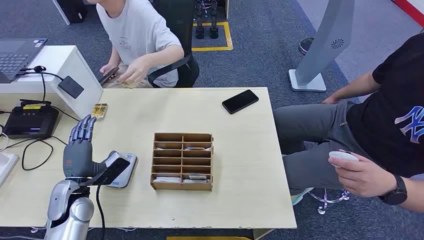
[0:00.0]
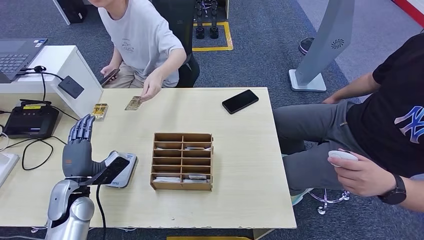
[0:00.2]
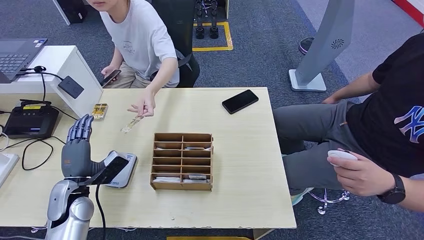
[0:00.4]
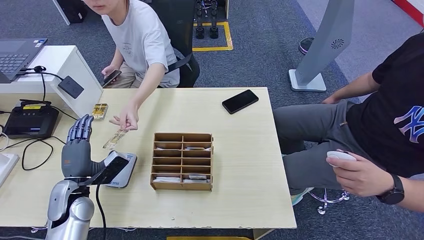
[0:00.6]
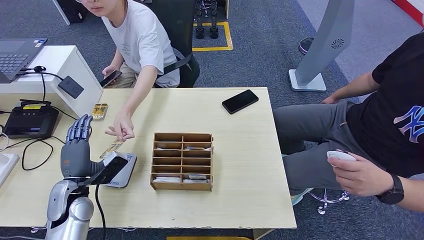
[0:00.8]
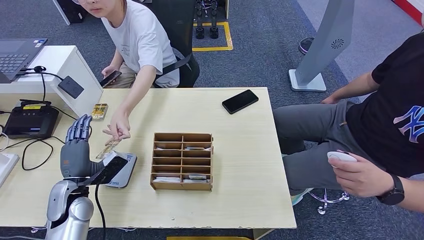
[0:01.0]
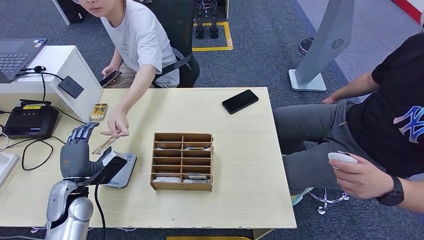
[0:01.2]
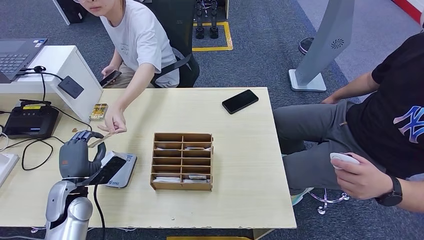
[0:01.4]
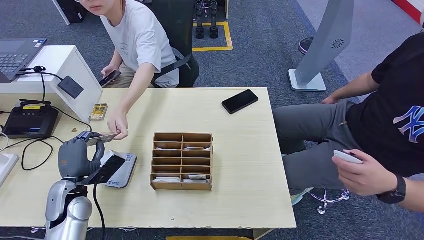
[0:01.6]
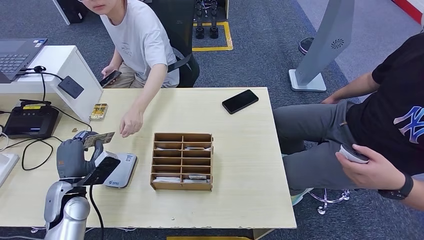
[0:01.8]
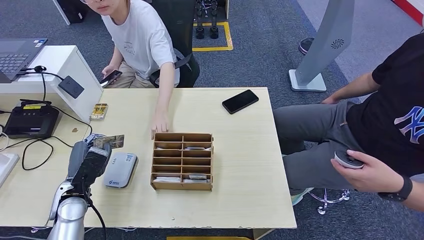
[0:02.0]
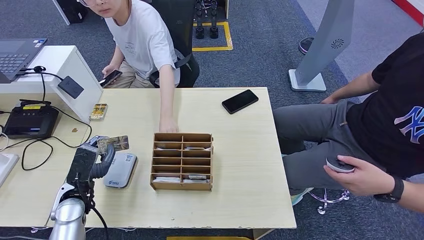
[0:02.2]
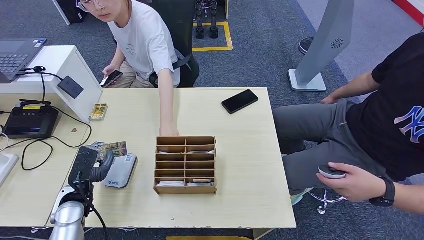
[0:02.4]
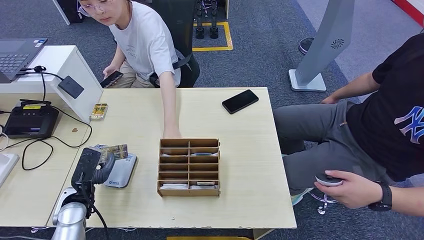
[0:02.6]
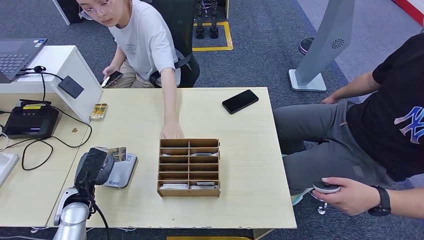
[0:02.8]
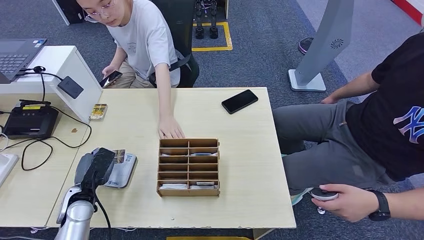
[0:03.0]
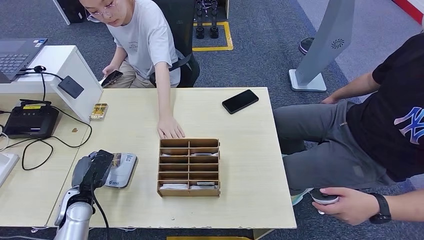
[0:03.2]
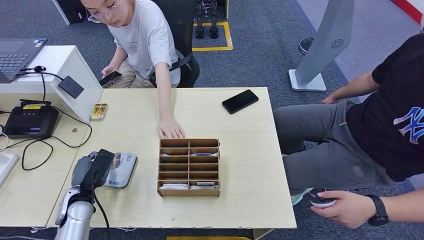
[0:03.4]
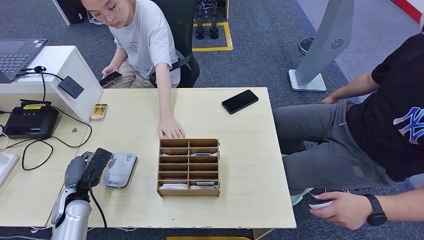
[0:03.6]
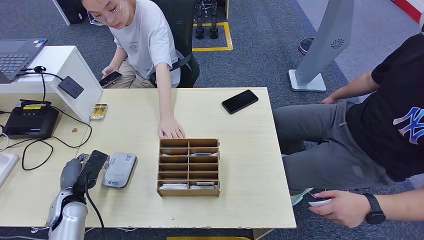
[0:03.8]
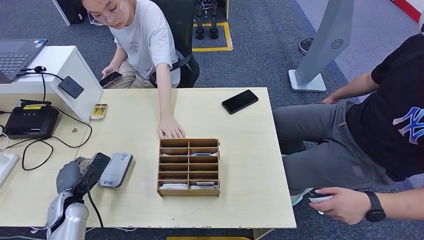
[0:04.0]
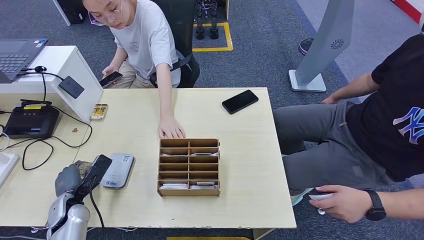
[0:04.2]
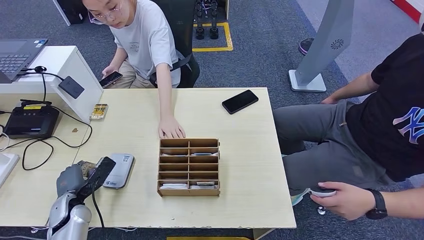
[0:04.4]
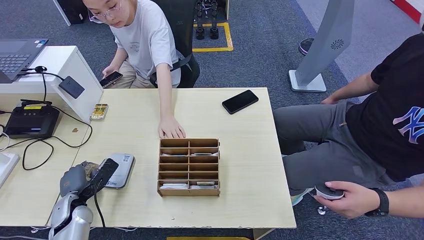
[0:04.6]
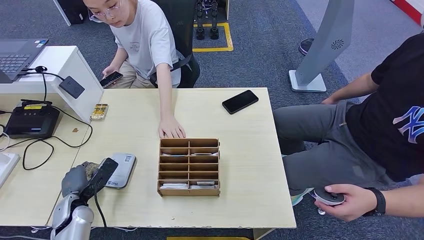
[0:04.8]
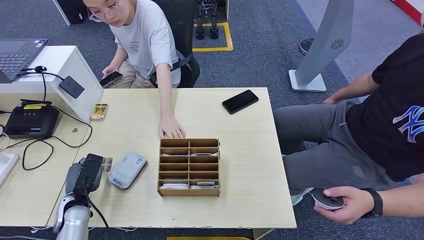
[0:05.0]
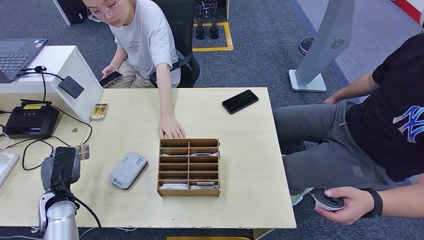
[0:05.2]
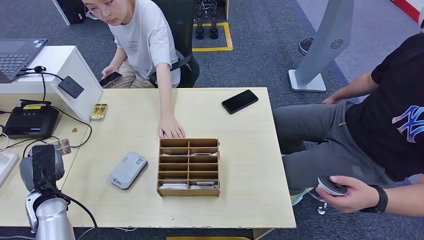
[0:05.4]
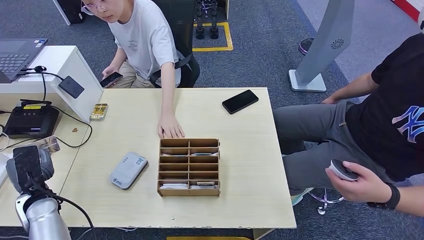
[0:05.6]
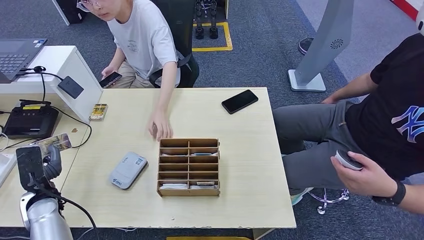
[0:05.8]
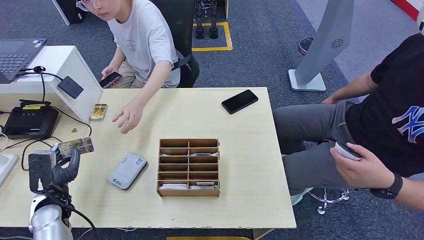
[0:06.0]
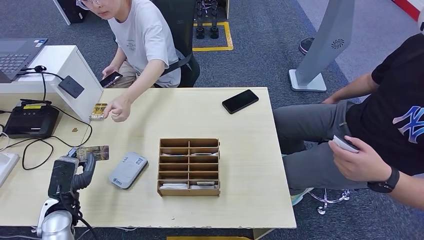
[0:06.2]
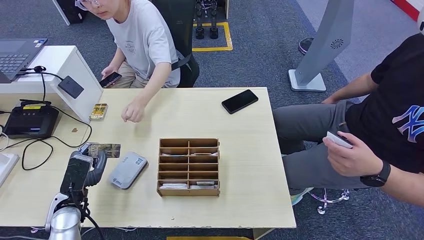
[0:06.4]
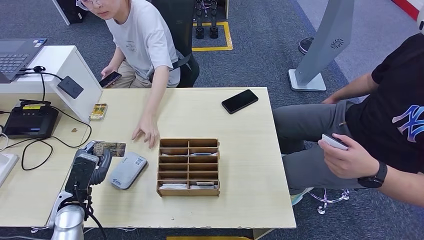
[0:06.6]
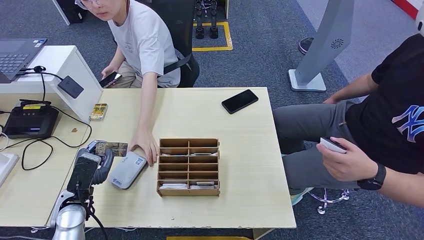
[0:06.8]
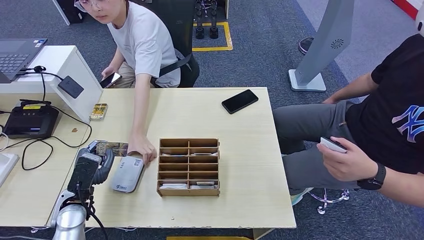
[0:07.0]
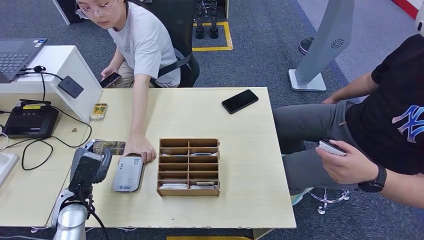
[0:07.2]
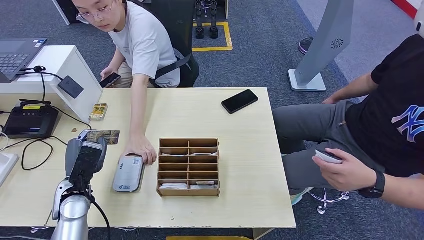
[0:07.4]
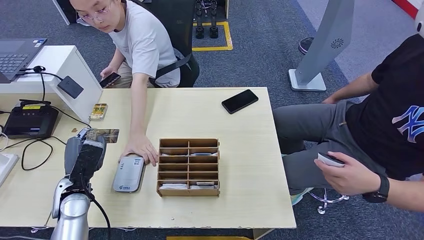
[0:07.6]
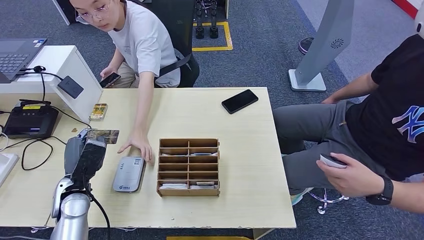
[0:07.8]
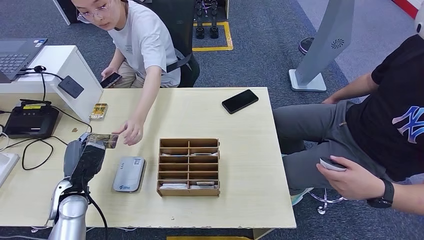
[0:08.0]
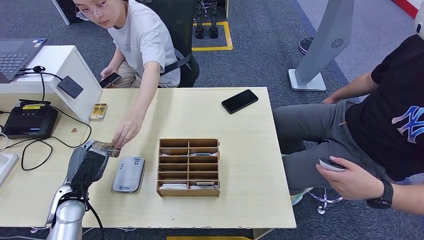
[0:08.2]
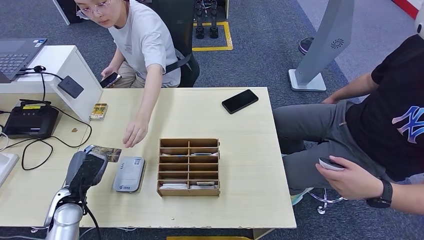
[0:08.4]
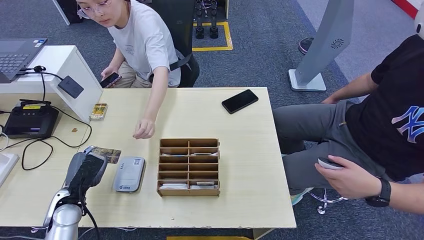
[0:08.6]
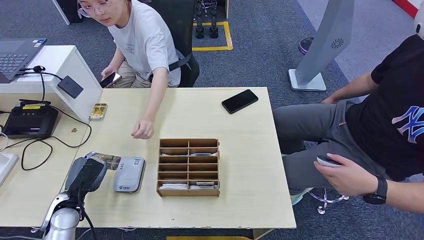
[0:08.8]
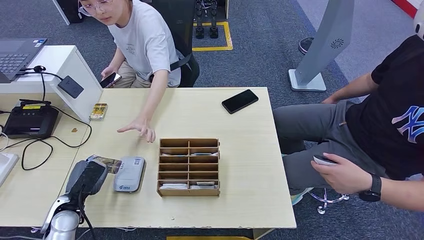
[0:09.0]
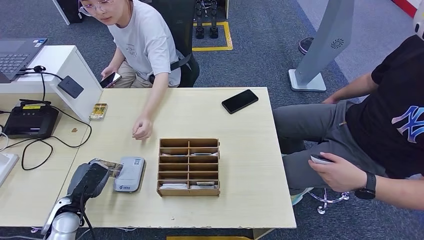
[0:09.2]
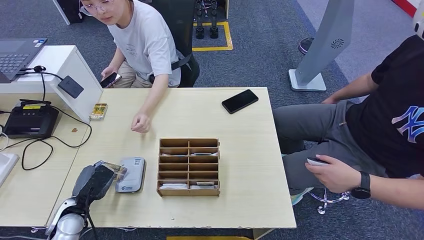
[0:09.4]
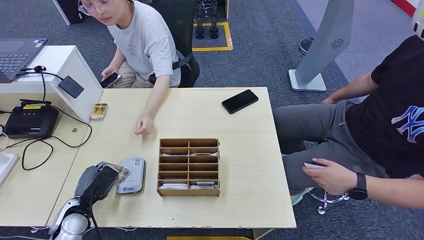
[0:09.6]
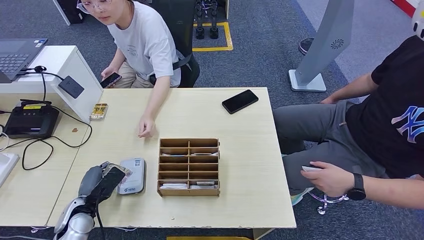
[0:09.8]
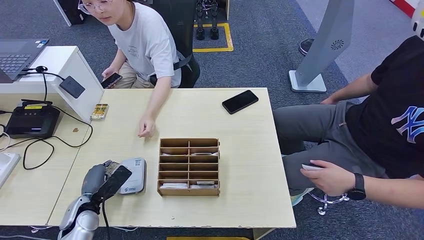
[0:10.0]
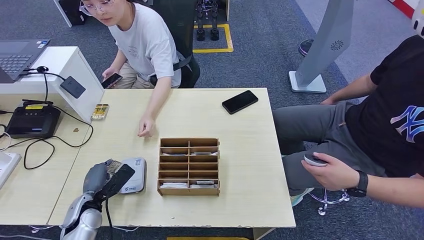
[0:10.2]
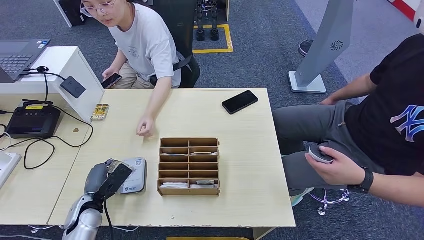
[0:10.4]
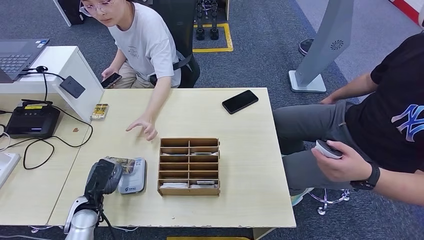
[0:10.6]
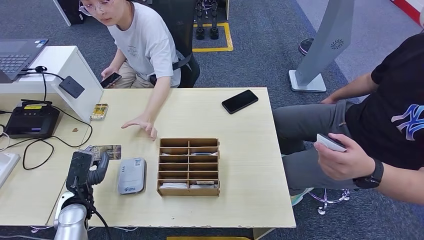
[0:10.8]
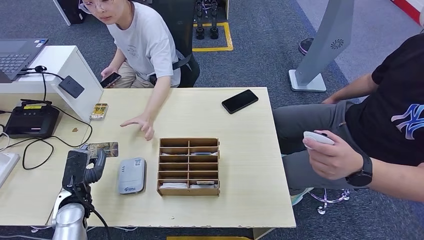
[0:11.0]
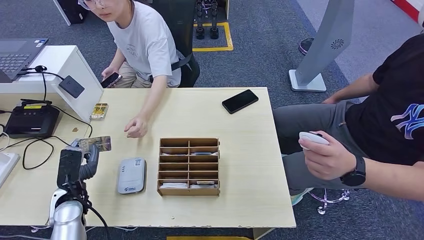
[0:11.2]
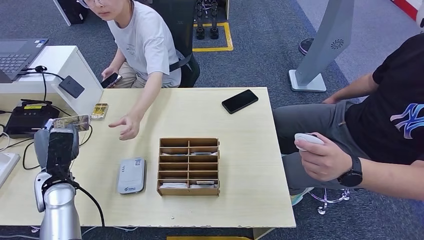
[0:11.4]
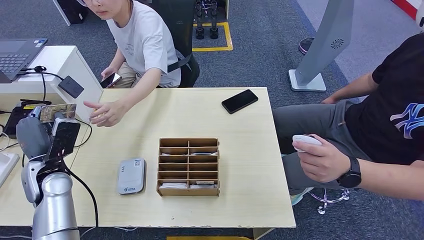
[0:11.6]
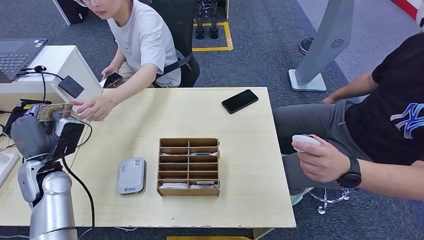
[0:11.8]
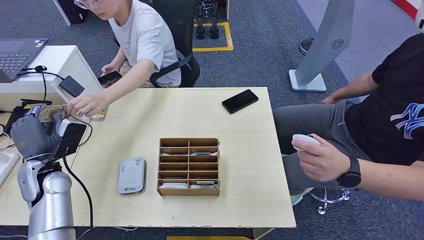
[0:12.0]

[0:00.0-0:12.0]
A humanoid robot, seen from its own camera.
Step, 0:00.0 to 0:01.8: Take the ID card from the person's hand.
Step, 0:02.0 to 0:03.8: Place the ID card on the card reader.
0:03.0 to 0:04.4: The left hand changes place by roughly 5 cm.
0:04.4 to 0:06.0: The left hand heads upward, covering some 5 cm.
0:06.0 to 0:07.6: The left hand is displaced to the right by approximately 5 cm.
0:07.6 to 0:09.0: The left hand moves downward, about 5 cm.
0:09.0 to 0:10.4: The left hand changes place by about 5 cm.

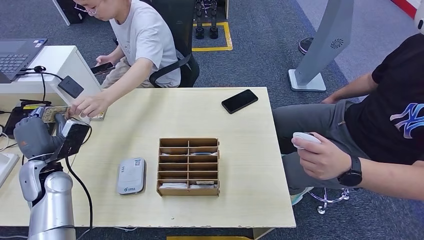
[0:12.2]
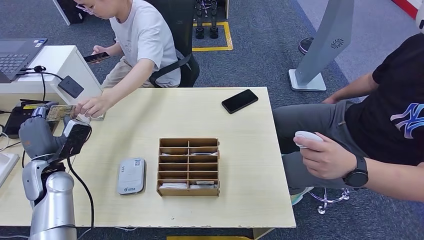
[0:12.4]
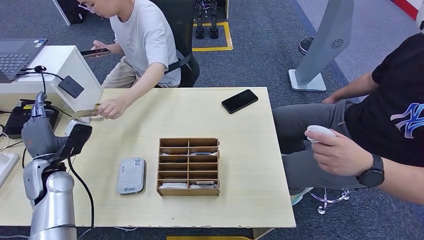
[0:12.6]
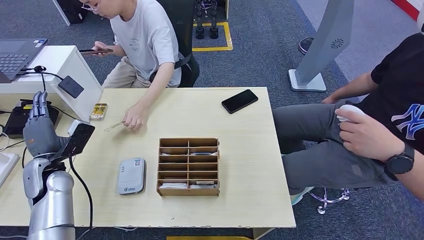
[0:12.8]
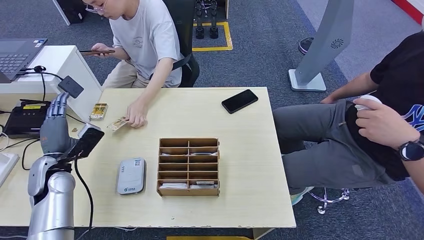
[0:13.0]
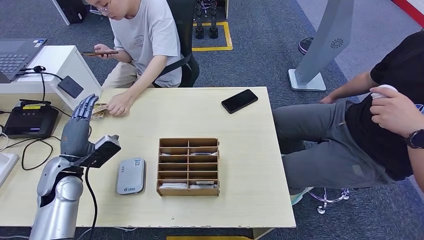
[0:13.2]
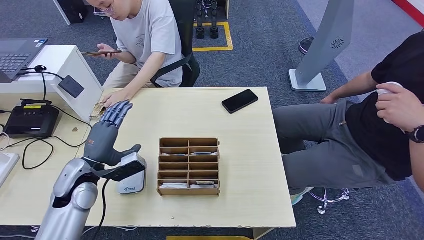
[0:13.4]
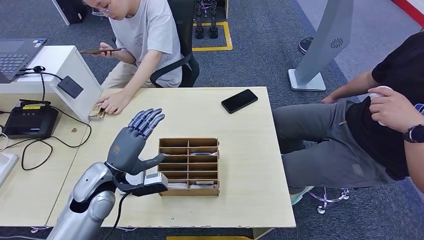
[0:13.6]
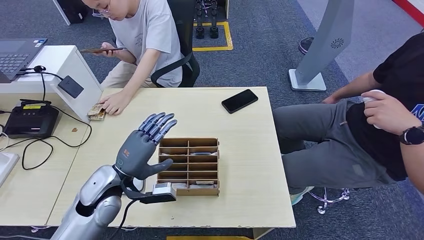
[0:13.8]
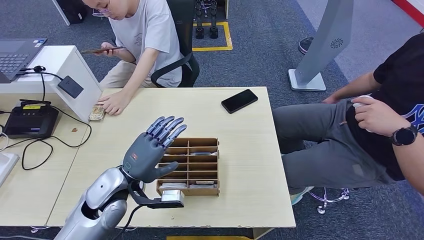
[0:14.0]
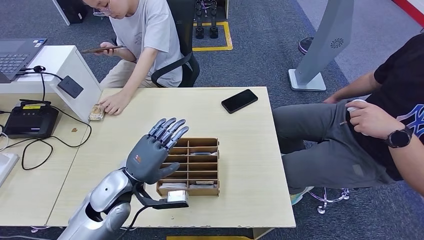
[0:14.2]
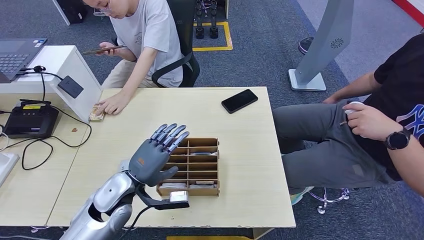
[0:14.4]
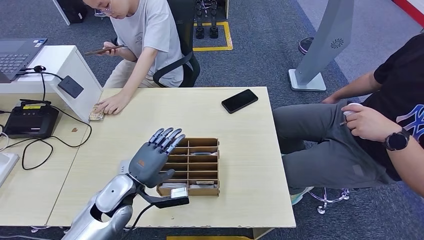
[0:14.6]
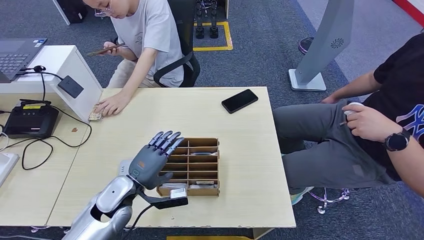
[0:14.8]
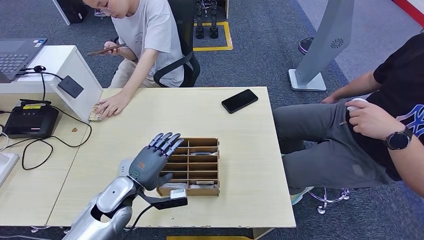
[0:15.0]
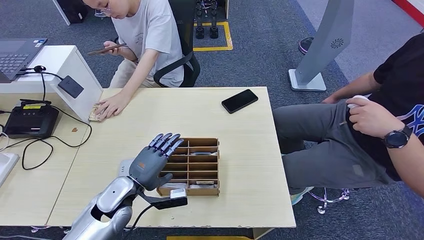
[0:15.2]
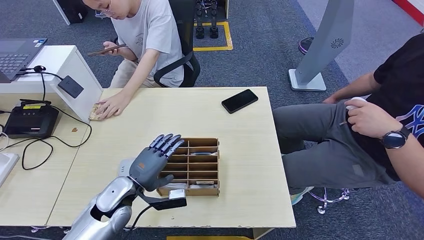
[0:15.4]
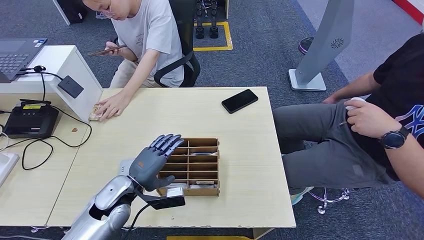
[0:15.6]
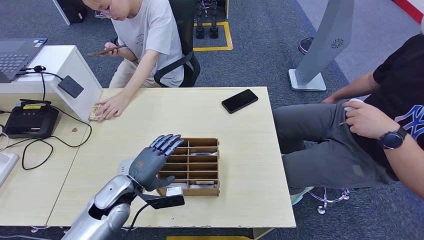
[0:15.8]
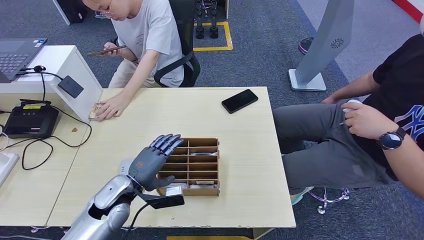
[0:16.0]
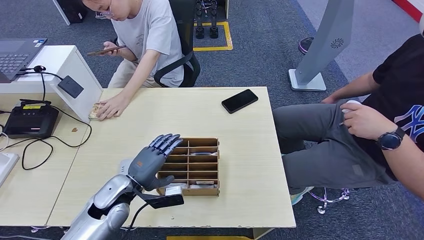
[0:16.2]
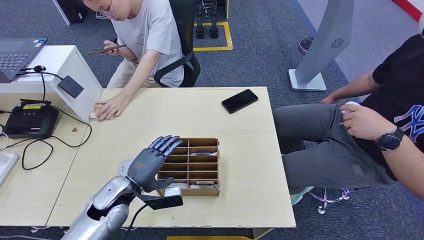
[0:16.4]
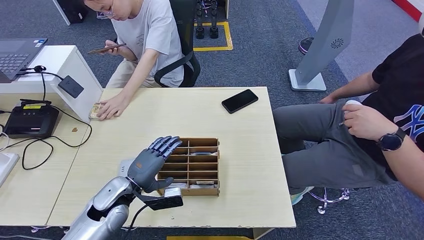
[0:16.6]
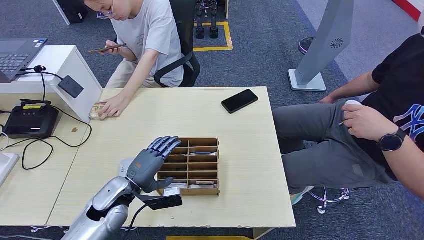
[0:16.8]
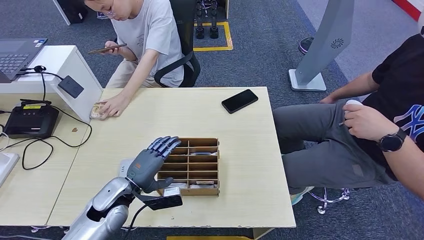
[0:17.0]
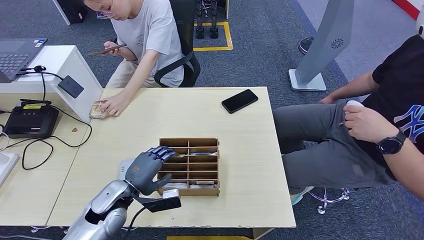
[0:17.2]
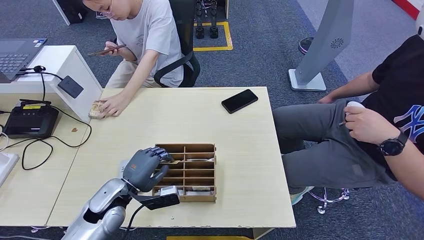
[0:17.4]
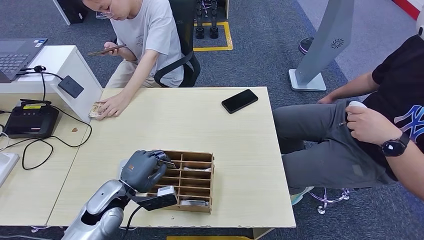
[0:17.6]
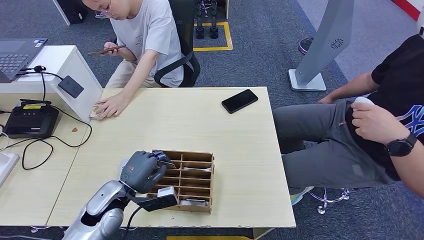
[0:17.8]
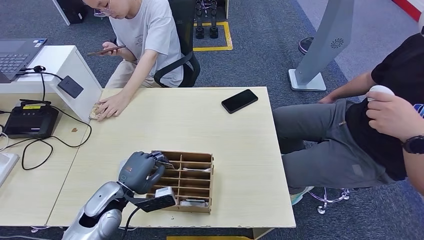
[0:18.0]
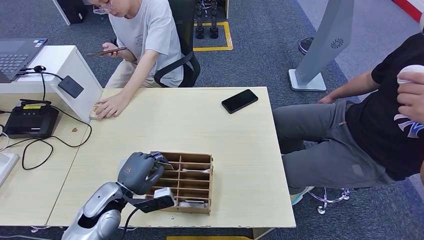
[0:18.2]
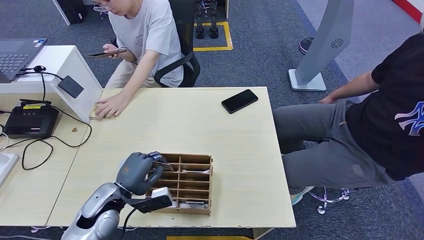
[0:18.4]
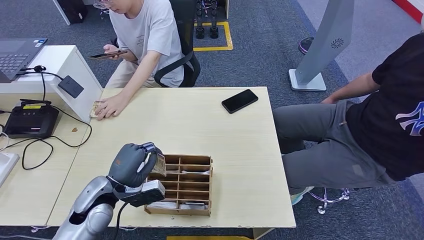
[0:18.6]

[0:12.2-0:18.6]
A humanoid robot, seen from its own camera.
0:13.8 to 0:15.4: The left hand goes roughly 5 cm downward.
0:15.4 to 0:18.6: There are only small adjustments of the hands.
